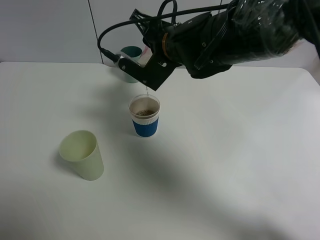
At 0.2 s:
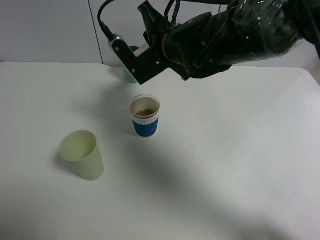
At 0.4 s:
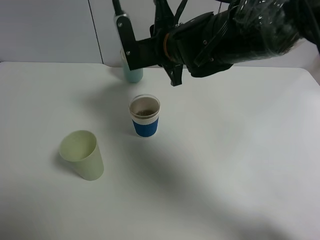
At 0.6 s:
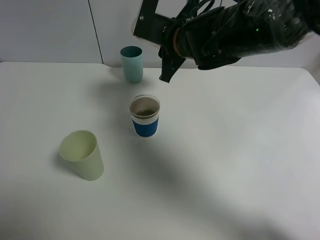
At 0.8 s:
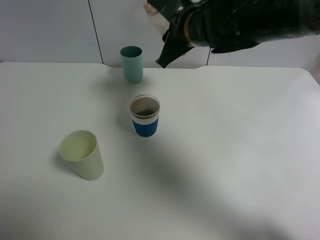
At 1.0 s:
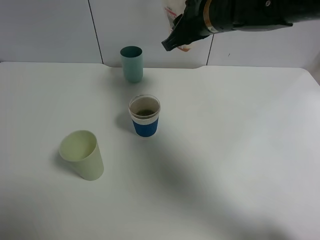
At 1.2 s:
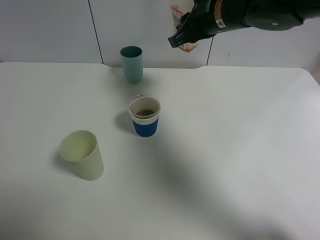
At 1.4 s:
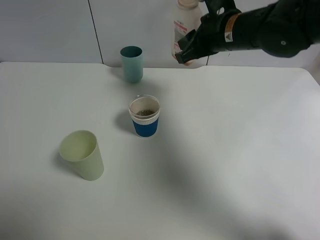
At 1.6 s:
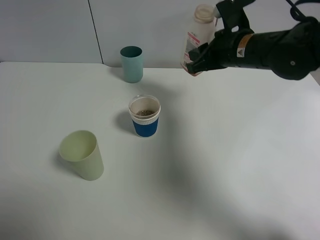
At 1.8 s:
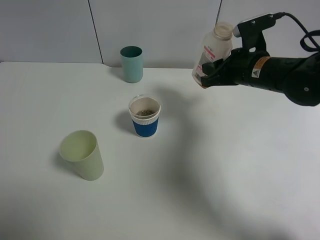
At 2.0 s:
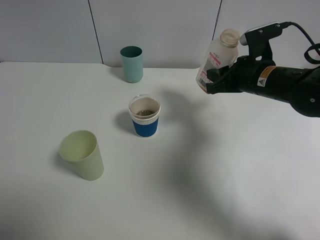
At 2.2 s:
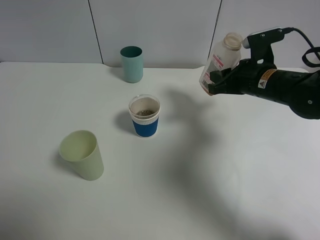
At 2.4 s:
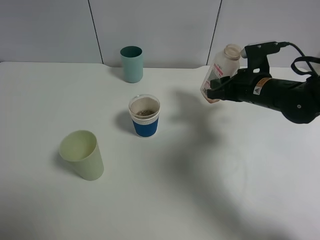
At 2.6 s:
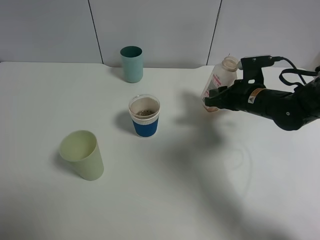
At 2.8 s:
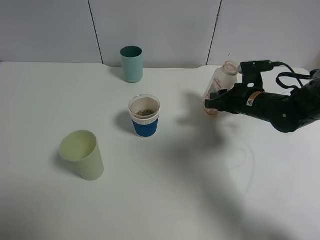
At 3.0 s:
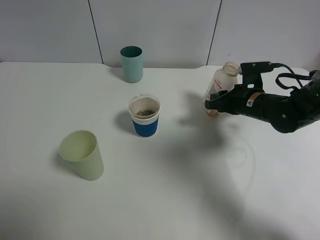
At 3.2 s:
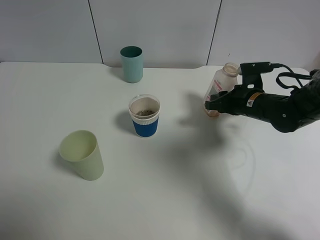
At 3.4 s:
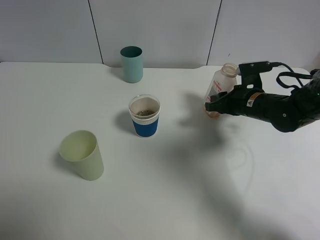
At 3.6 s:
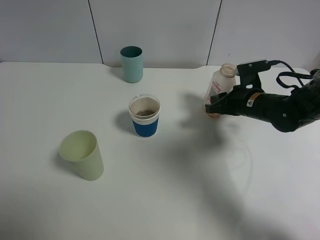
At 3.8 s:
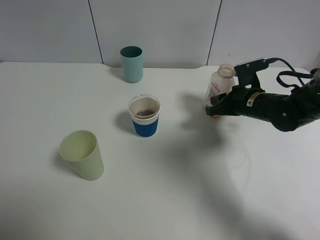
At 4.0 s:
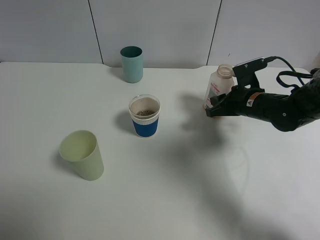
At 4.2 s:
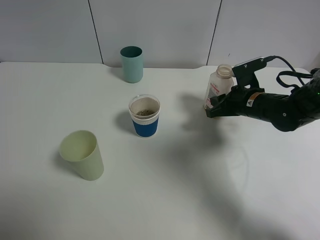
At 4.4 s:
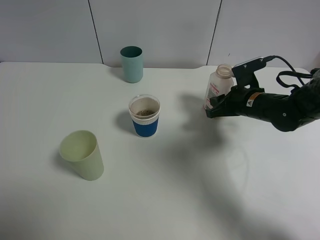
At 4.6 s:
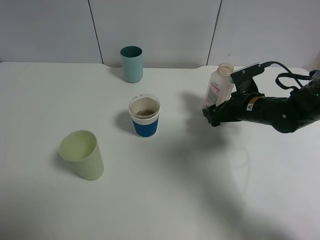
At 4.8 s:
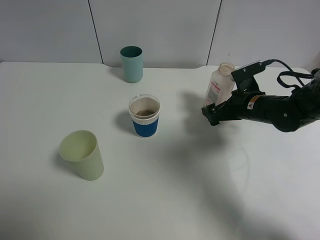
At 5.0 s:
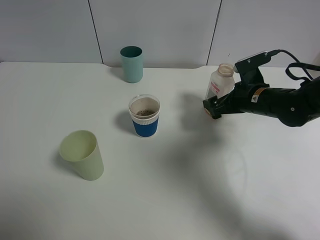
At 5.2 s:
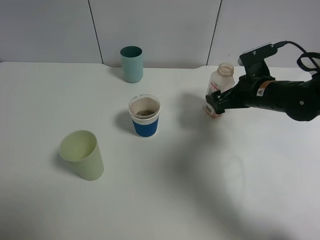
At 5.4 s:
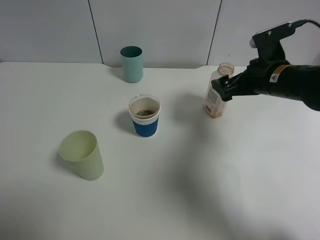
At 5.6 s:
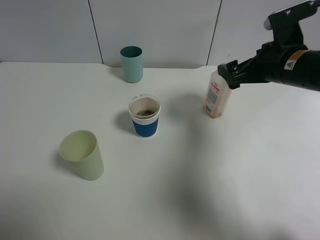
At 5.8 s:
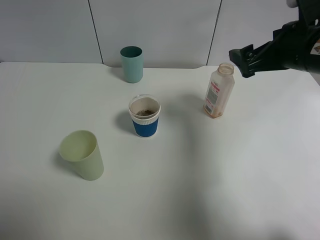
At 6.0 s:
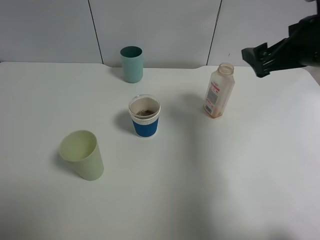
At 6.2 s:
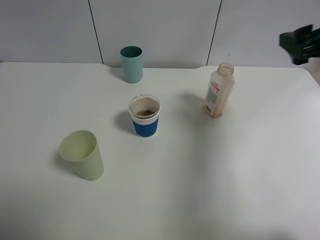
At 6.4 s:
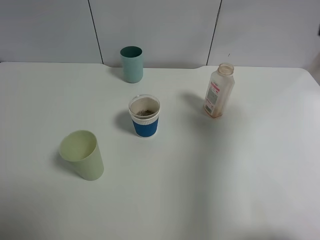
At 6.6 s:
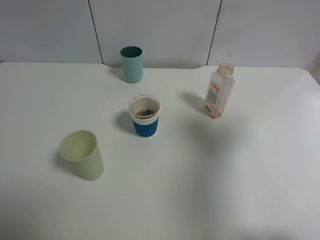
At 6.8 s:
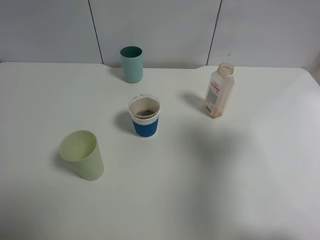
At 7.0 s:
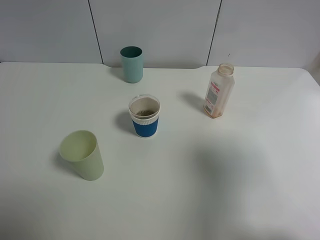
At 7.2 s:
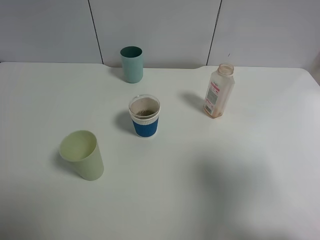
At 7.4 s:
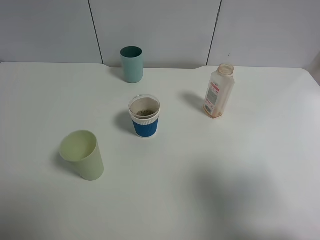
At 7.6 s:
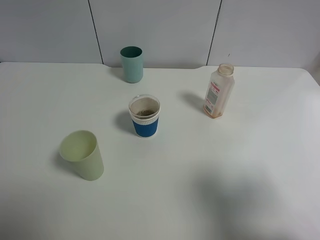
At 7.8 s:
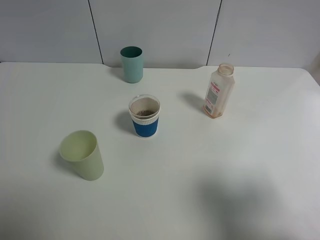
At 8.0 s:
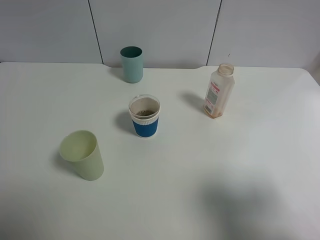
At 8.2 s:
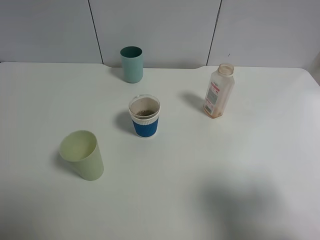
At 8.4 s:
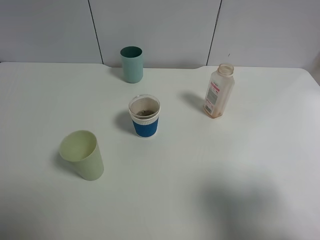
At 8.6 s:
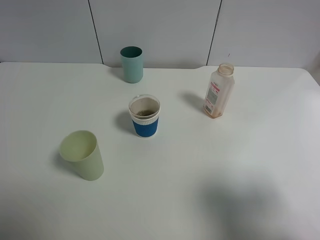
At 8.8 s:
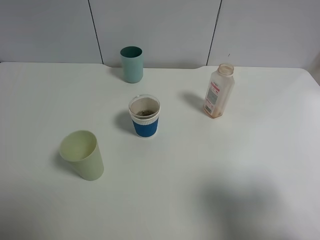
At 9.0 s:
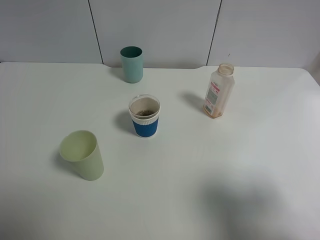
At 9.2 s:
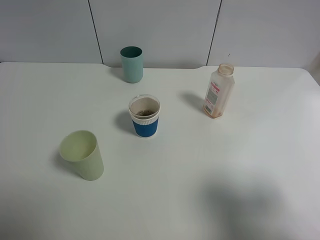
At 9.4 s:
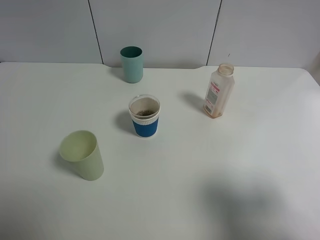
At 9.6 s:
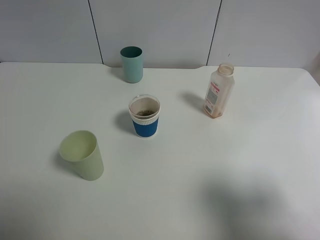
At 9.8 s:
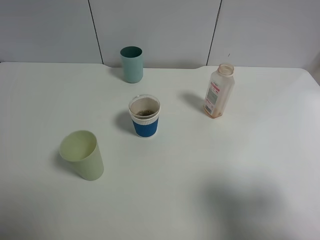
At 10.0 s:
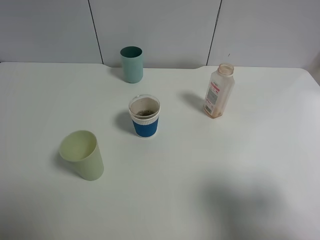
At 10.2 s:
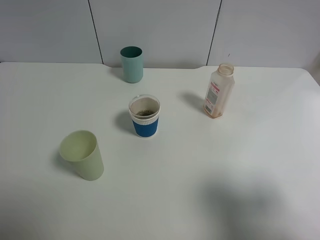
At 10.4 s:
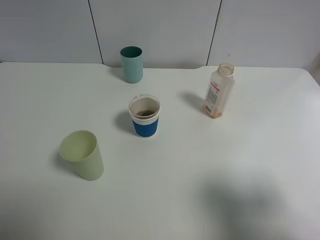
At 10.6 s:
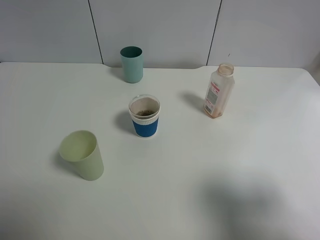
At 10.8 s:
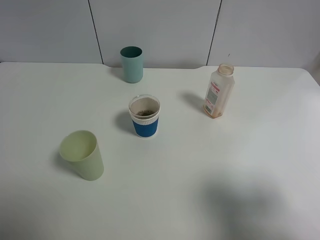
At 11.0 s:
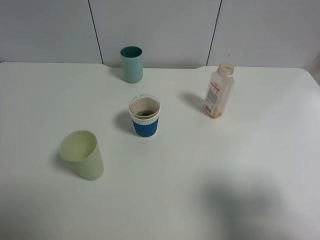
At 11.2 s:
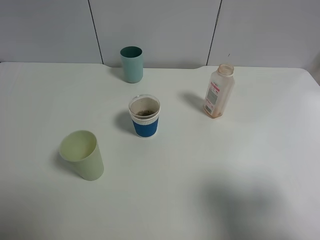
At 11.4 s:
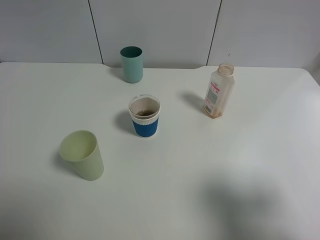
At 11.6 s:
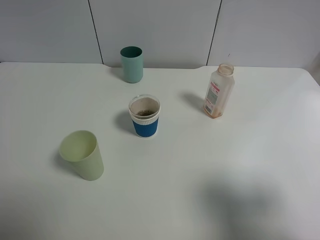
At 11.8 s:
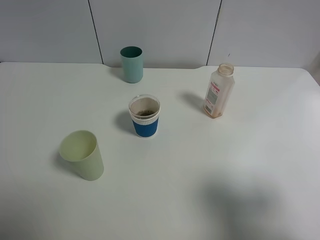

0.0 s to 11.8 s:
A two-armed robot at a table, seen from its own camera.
Task of the whole recording: use a gripper to hold the bottle of the drink and pour it into a random cup.
Step, 0.4 to 4.6 s: Place the cranberry juice bottle on the table with the right gripper.
0.0 to 1.4 s: The right gripper shifts roughly 10 cm to the right.
1.4 to 3.0 s: The right gripper moves downward and to the right, roughly 15 cm.
3.0 to 4.4 s: The grippers move only a little.
4.4 to 6.0 s: The right gripper travels upward and backward by some 20 cm, and opens up.
6.0 to 7.4 s: The right gripper goes about 25 cm backward.
7.4 to 8.8 s: There are only small adjustments of the grippers.
8.8 to 11.8 s: Neither gripper changes place.

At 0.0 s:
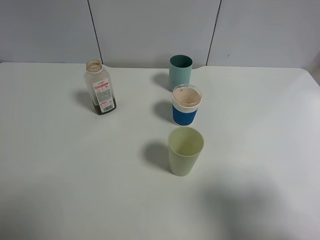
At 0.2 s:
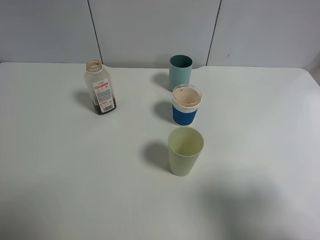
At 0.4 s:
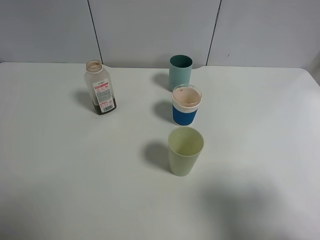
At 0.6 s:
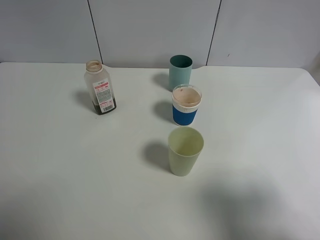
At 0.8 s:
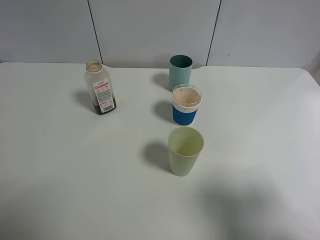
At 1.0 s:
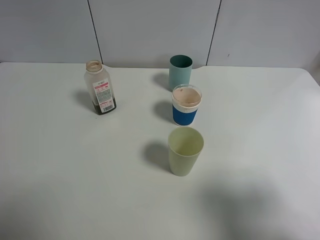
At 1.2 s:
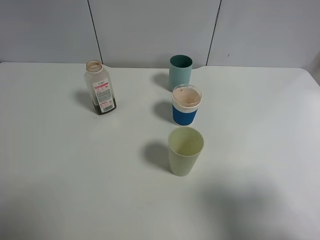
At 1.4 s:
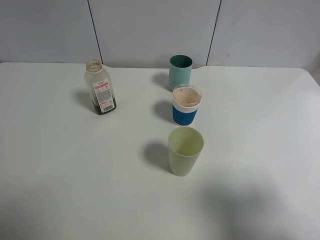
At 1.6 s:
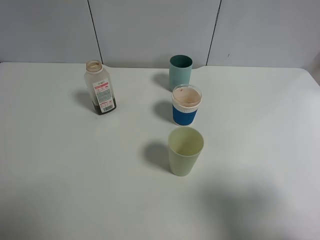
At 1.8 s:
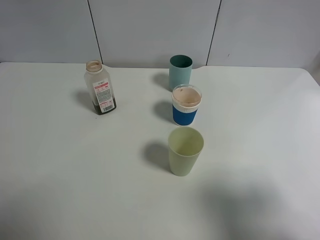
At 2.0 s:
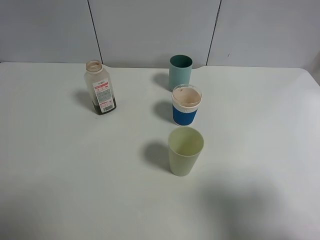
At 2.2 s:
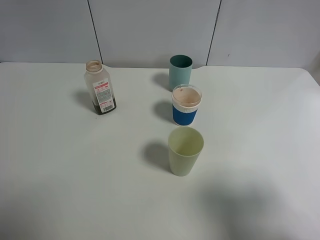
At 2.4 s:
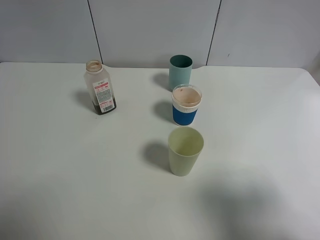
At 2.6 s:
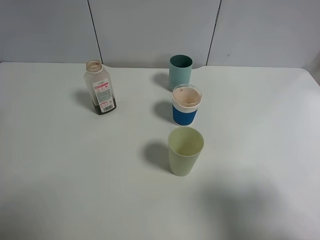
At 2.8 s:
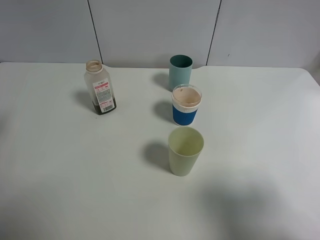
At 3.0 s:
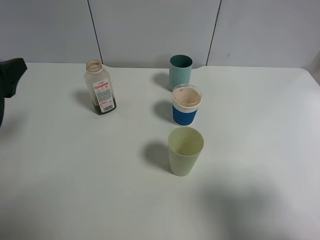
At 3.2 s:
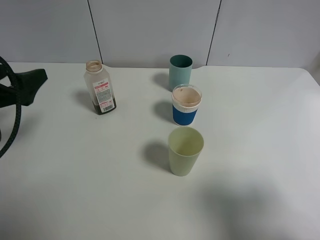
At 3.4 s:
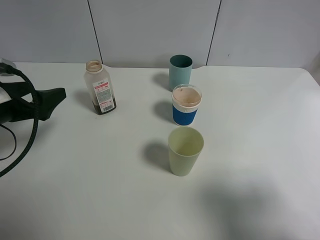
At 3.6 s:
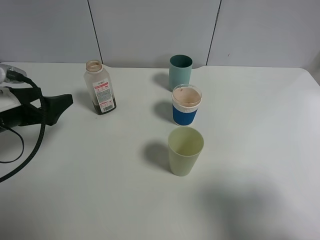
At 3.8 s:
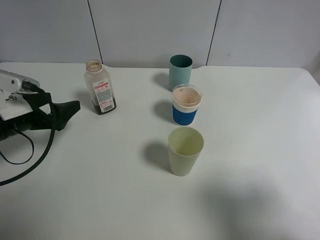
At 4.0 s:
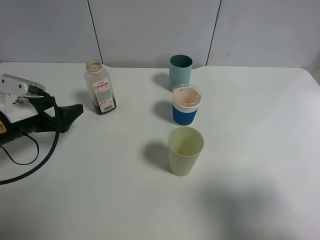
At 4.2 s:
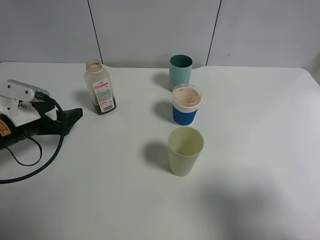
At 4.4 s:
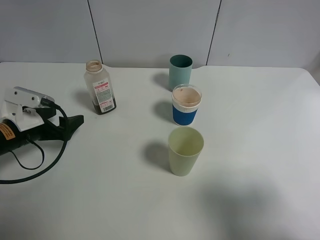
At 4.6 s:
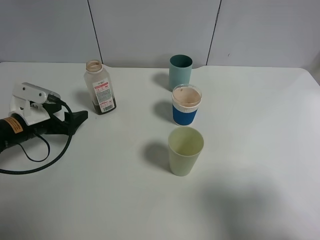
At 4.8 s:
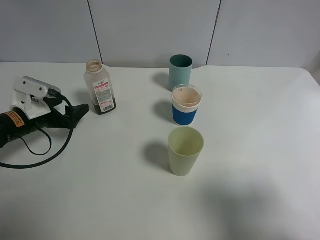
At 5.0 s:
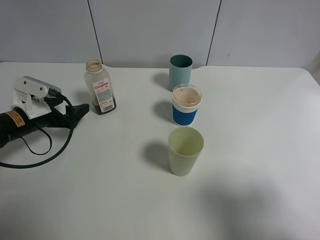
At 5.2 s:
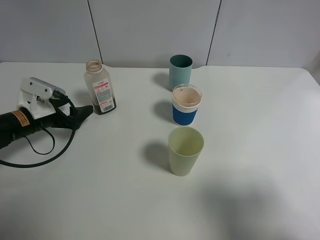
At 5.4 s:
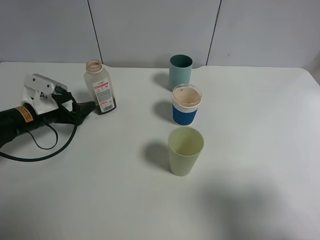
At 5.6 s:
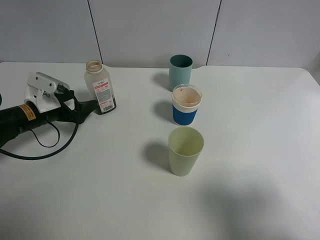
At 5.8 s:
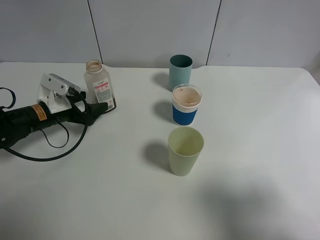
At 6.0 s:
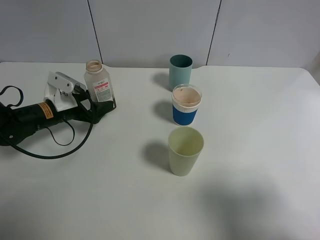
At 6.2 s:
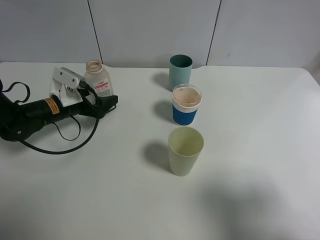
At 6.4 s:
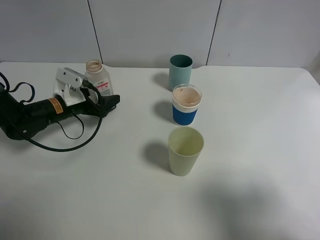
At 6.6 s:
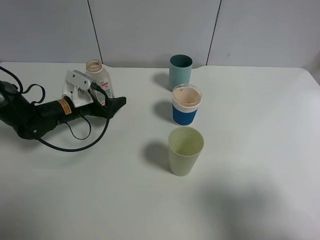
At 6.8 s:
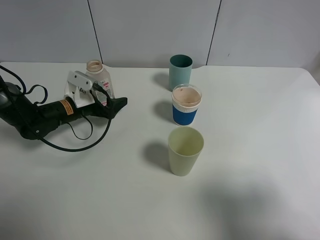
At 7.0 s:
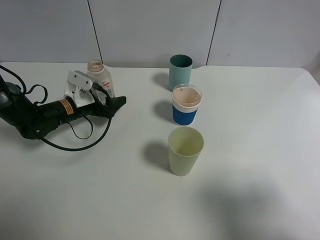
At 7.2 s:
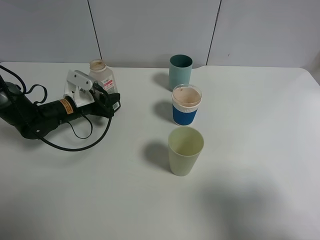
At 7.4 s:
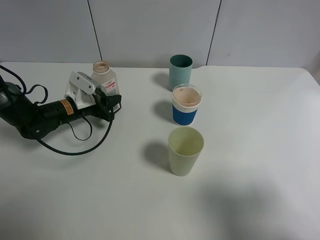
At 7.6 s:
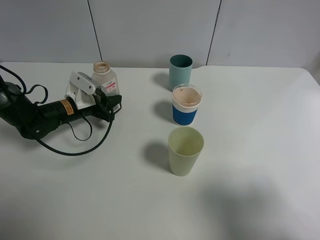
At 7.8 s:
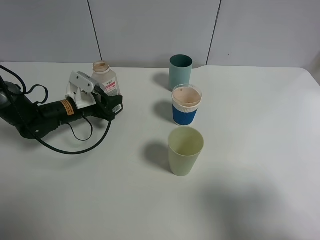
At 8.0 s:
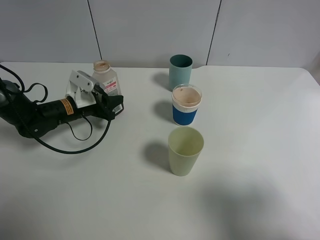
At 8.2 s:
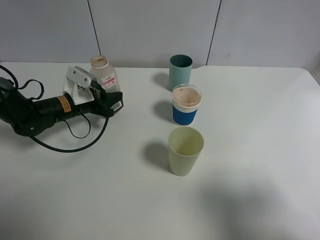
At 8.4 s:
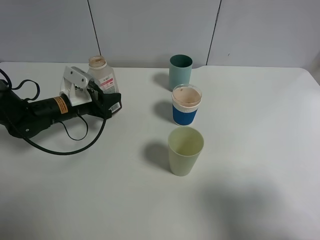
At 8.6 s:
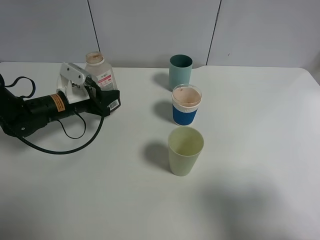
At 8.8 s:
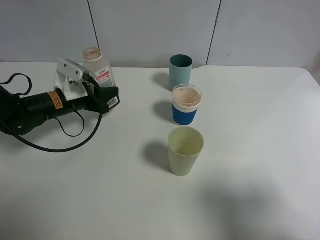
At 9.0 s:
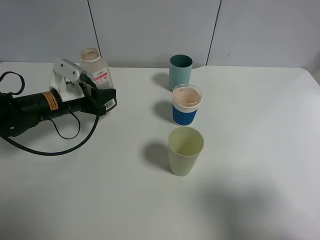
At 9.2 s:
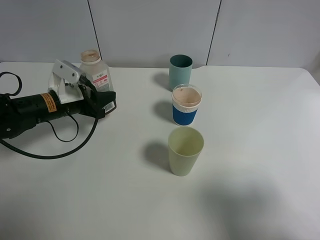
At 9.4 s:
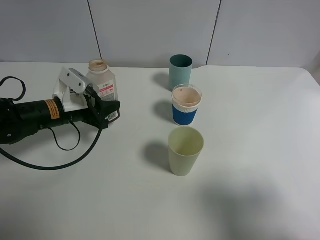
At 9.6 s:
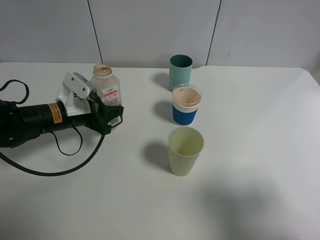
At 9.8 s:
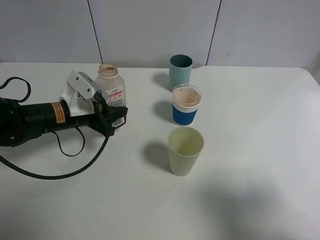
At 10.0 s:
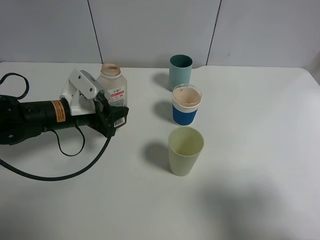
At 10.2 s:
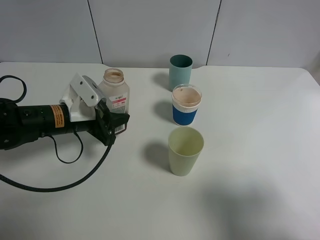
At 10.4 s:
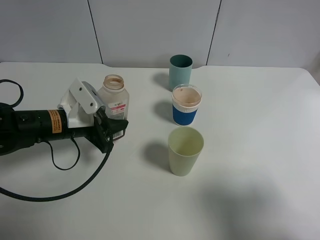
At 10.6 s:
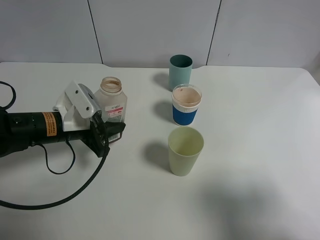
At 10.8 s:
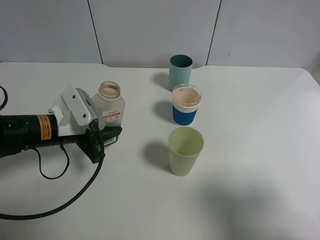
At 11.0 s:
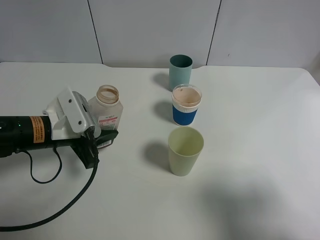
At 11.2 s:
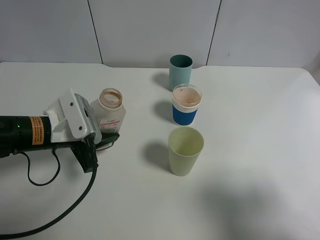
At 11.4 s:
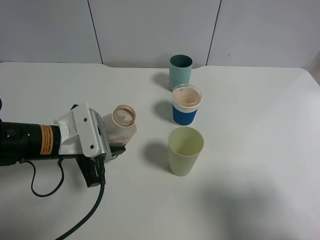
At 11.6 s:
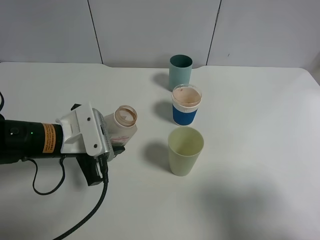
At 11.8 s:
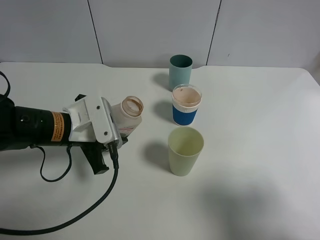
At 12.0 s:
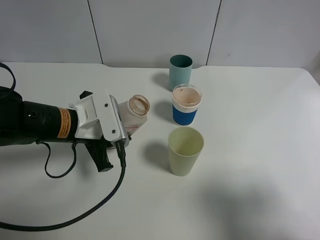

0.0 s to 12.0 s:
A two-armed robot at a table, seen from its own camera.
Task of the whole recording: use a gripper to hold the bottle of the drink and pour it into a random cup.
Step, 0.0 to 7.8 s: Grasp the cranberry juice bottle with the left gripper.
1.6 to 3.0 s: The left gripper shifts roughly 15 cm forward and downward.
3.0 to 4.4 s: The left gripper travels downward and forward by about 15 cm.
4.4 to 6.0 s: The left gripper moves forward, about 10 cm.
6.0 to 7.6 s: The left gripper closes up.
7.6 to 9.0 s: The left gripper shifts roughly 5 cm upward.
9.0 to 10.4 s: The left gripper moves backward, approximately 5 cm.
10.4 to 12.0 s: The left gripper ends up roughly 5 cm from where it was.
